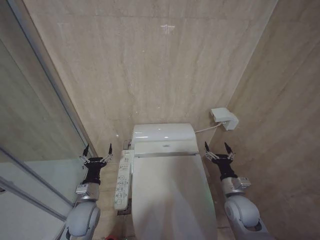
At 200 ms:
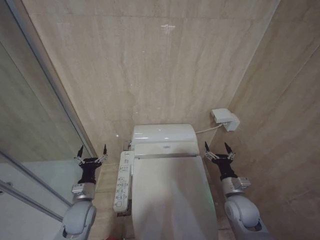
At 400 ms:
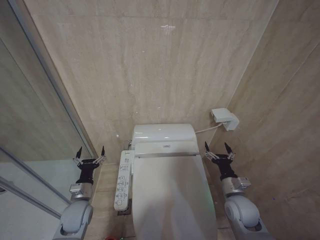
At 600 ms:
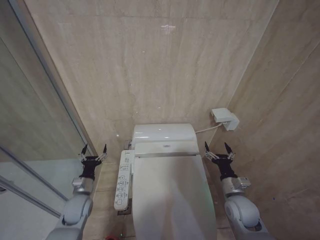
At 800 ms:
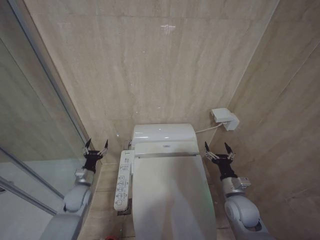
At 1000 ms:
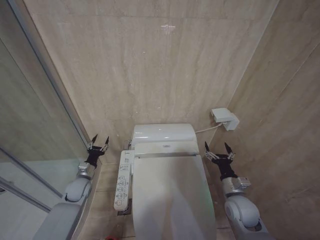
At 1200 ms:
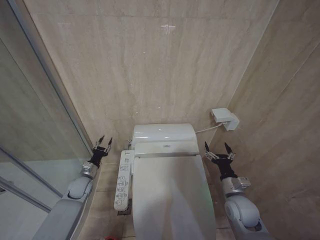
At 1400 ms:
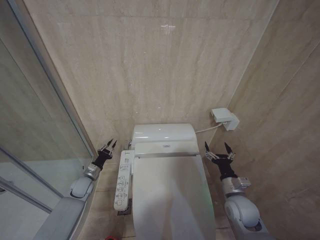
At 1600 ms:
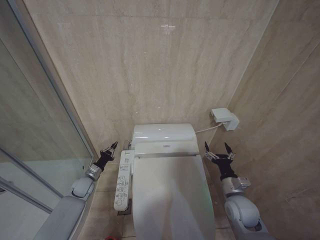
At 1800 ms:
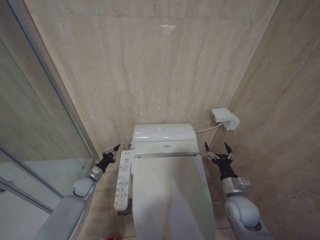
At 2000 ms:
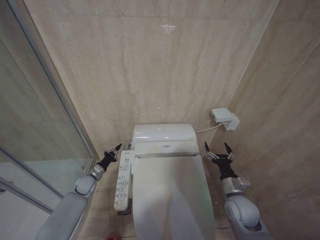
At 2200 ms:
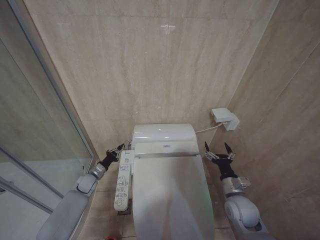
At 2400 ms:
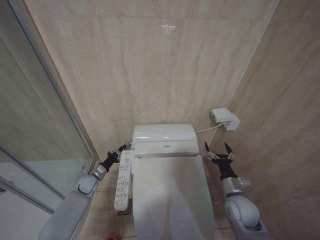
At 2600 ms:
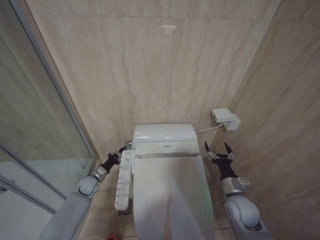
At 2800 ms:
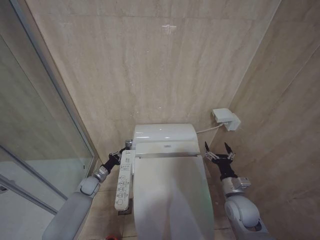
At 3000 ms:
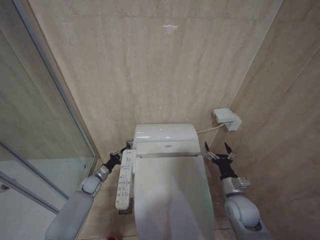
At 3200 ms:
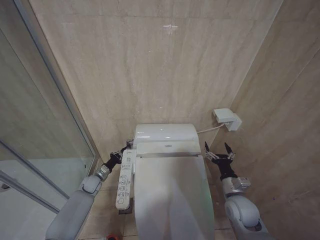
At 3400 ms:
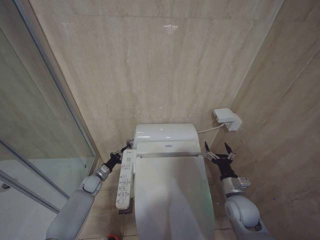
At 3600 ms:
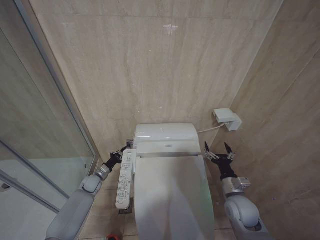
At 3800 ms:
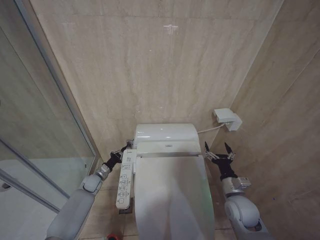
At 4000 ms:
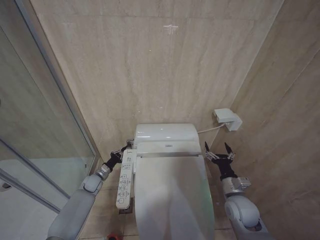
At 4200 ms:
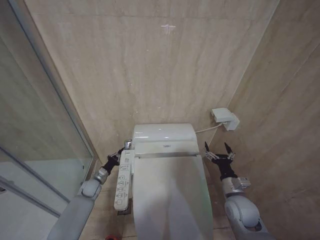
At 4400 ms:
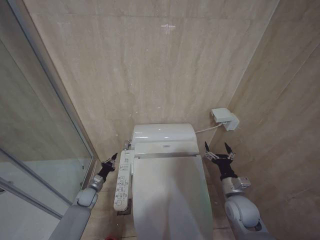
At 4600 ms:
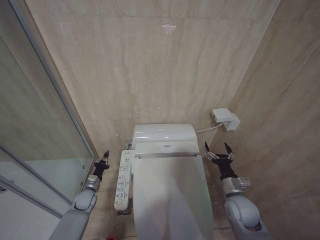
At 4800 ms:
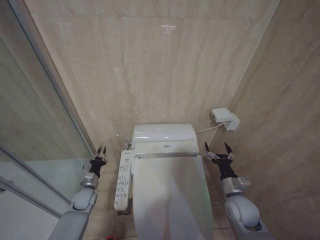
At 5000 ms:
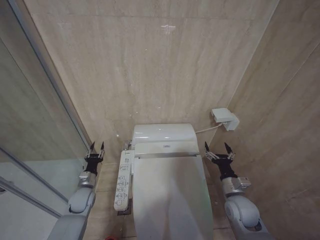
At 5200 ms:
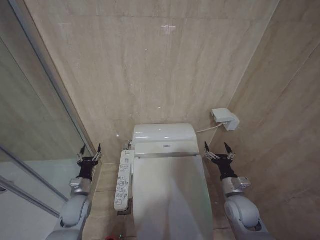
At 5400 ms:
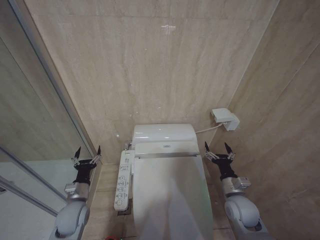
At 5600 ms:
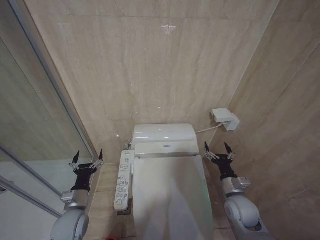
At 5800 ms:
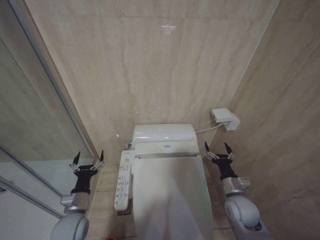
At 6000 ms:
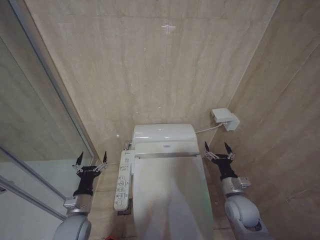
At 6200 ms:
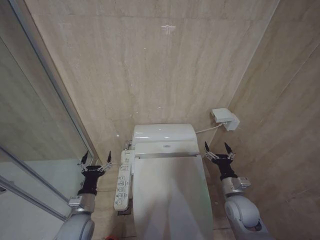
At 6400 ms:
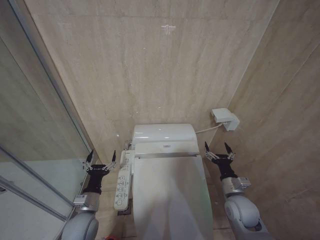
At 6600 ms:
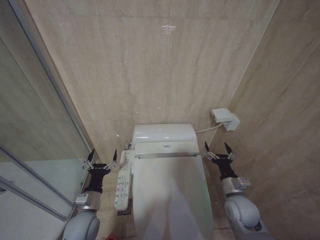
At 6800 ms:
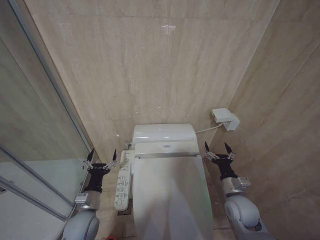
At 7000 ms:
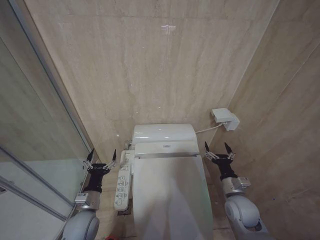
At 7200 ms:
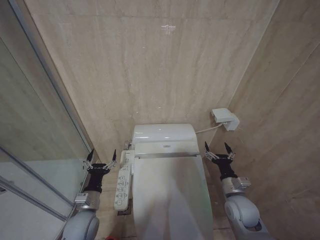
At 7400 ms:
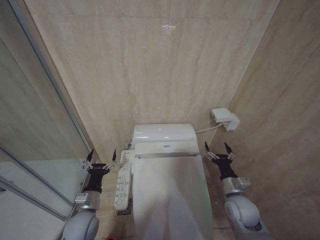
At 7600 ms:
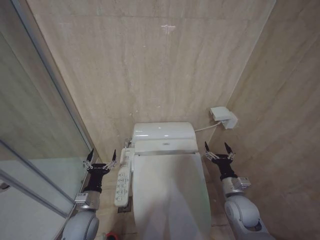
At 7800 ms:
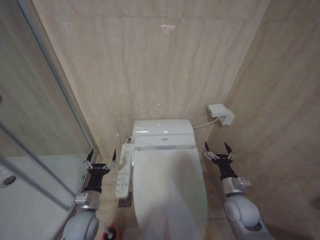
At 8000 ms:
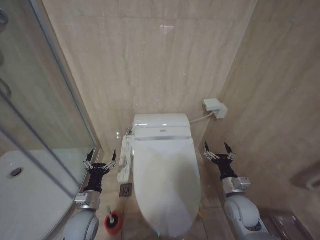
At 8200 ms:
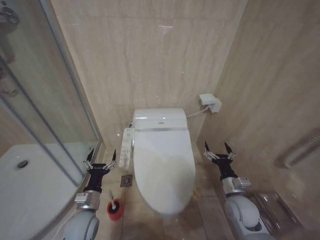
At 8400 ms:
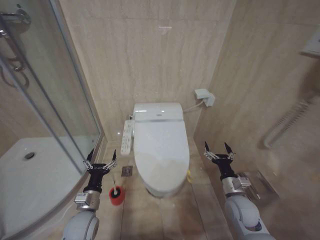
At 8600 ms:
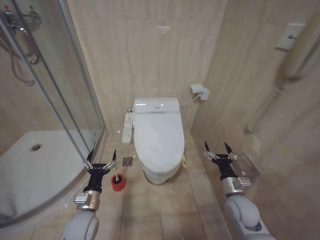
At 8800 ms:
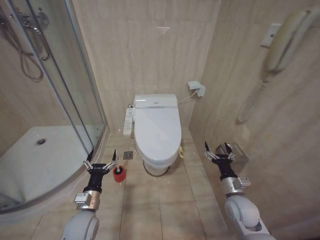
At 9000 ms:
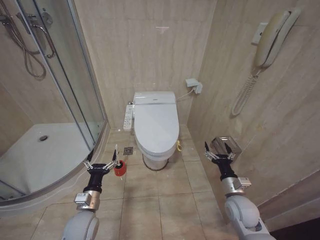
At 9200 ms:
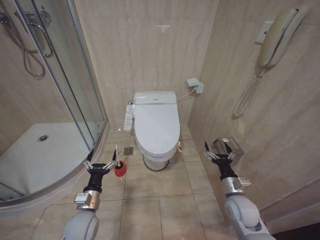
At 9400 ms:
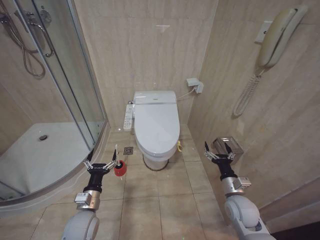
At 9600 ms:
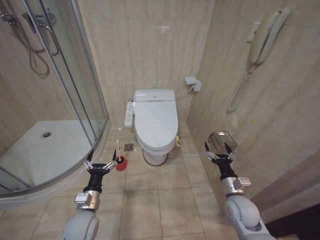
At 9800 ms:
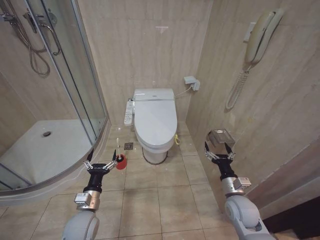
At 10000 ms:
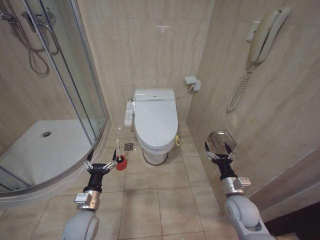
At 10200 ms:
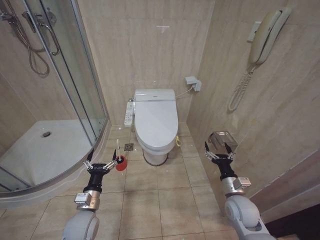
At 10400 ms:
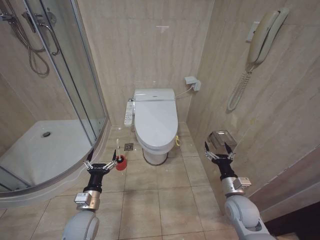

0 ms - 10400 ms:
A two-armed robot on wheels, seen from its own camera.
Task of the whole recording: Open the toilet lid, clean the toilet bowl with a toilet brush, close the toilet lid, and flush.
0 ms - 1400 ms: The left gripper goes roughly 20 cm forward, to the left and downward, and closes its fingers.
1400 ms - 3000 ms: The left gripper moves some 5 cm, and closes.
3000 ms - 4400 ms: The grippers stay close to where they were, moving slightly.
4400 ms - 6000 ms: The left gripper travels backward and upward by about 20 cm, and opens up.
6000 ms - 7400 ms: The grippers make only small movements.
9000 ms - 10400 ms: Both grippers stay put.
